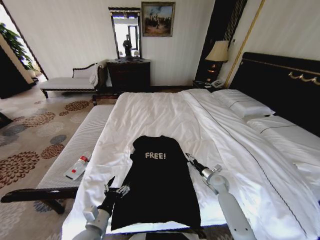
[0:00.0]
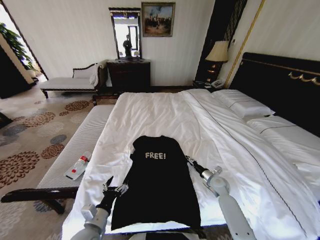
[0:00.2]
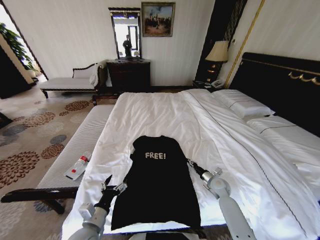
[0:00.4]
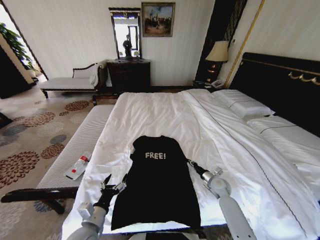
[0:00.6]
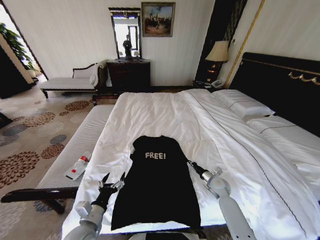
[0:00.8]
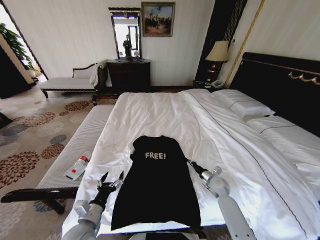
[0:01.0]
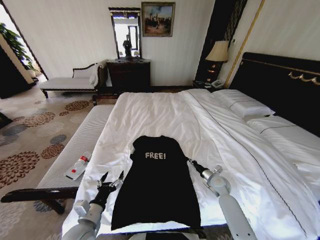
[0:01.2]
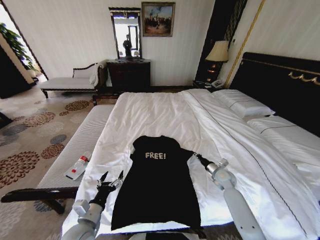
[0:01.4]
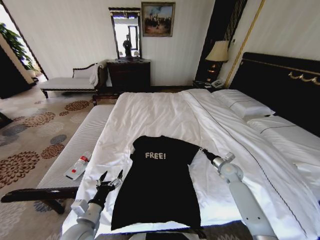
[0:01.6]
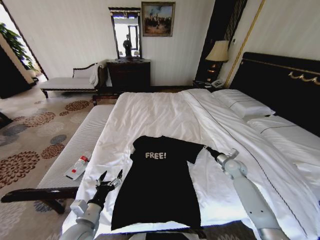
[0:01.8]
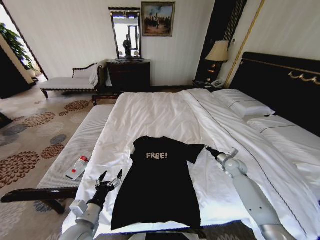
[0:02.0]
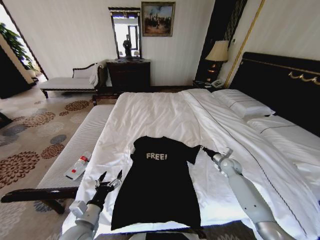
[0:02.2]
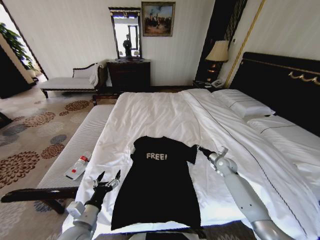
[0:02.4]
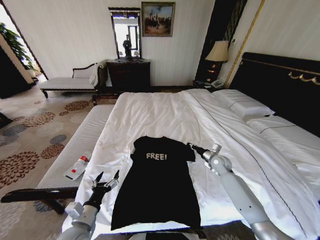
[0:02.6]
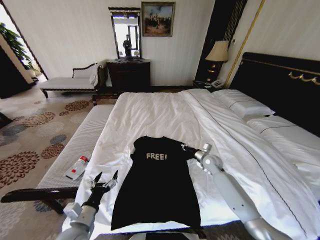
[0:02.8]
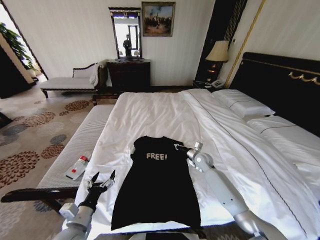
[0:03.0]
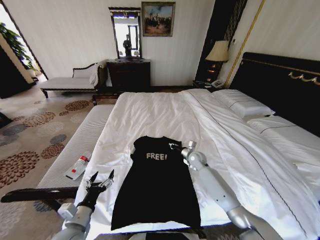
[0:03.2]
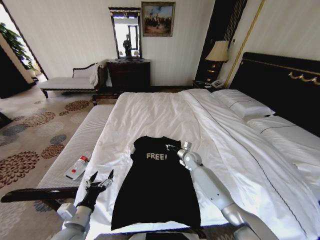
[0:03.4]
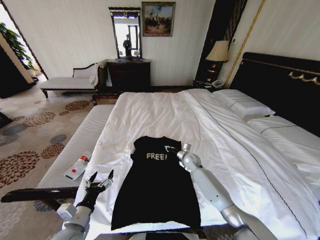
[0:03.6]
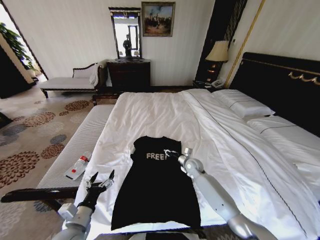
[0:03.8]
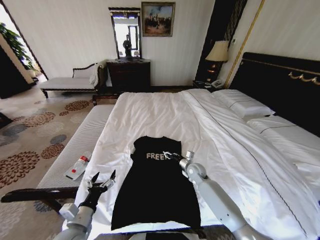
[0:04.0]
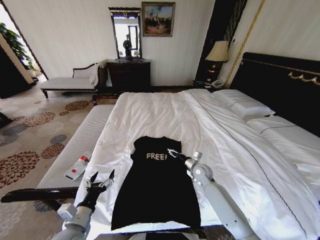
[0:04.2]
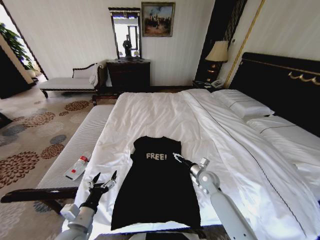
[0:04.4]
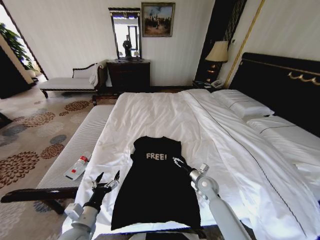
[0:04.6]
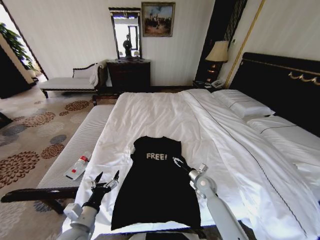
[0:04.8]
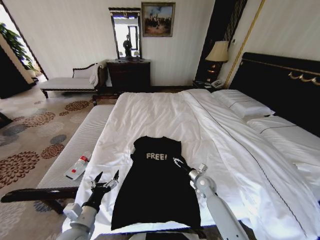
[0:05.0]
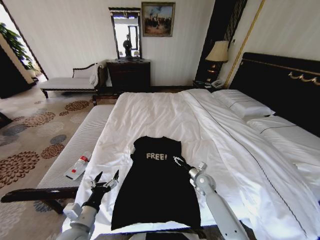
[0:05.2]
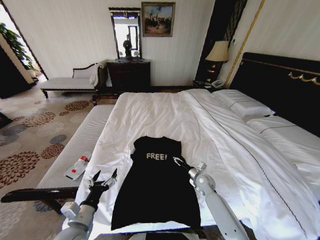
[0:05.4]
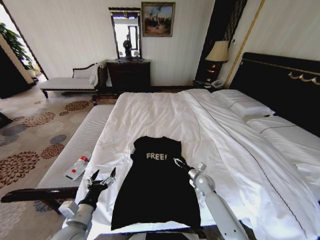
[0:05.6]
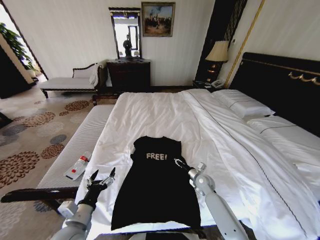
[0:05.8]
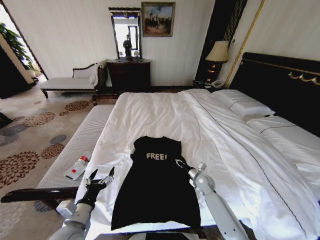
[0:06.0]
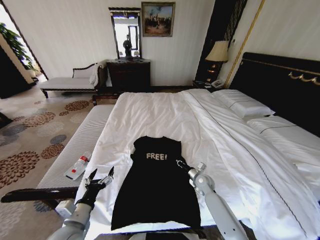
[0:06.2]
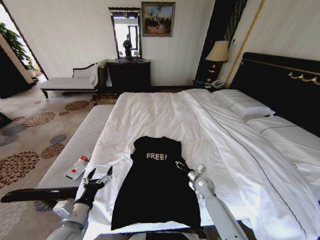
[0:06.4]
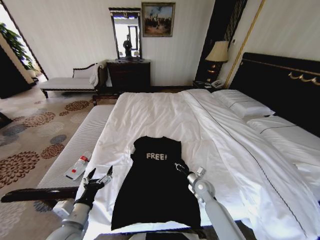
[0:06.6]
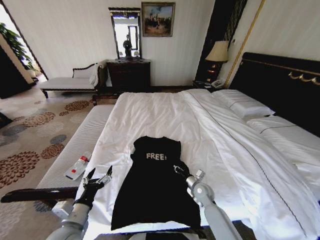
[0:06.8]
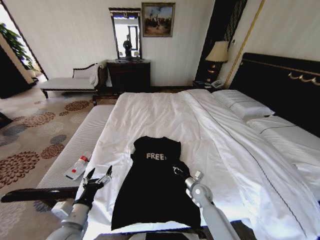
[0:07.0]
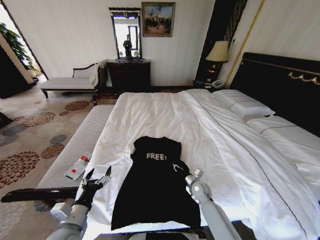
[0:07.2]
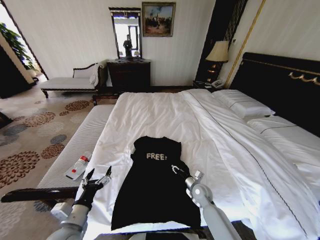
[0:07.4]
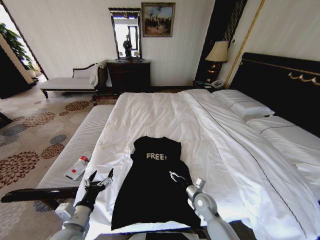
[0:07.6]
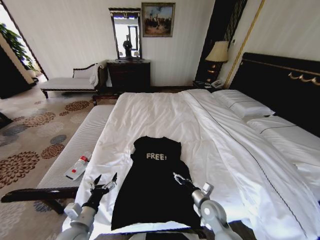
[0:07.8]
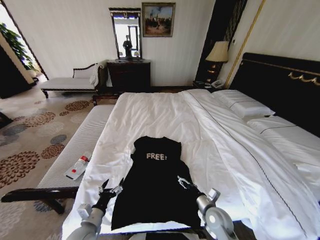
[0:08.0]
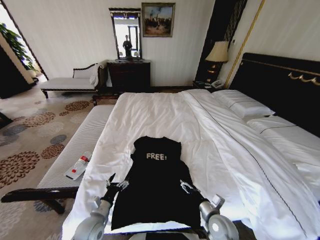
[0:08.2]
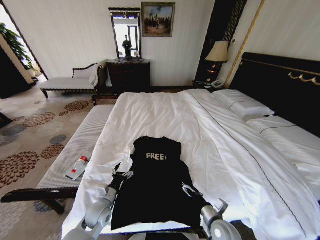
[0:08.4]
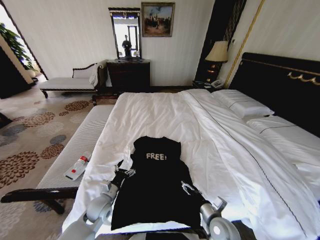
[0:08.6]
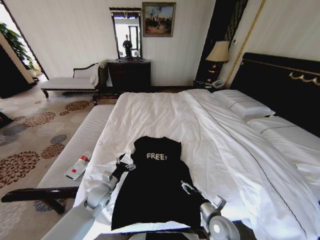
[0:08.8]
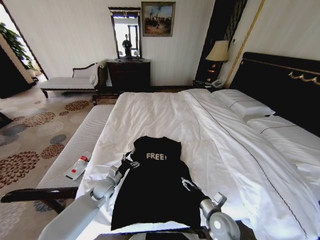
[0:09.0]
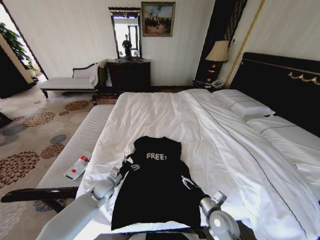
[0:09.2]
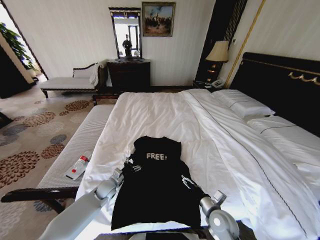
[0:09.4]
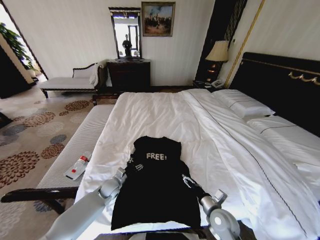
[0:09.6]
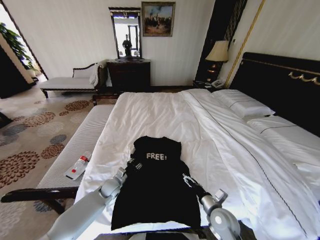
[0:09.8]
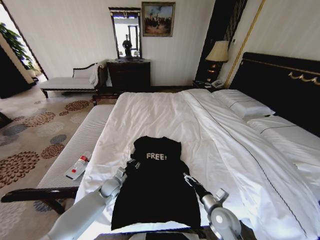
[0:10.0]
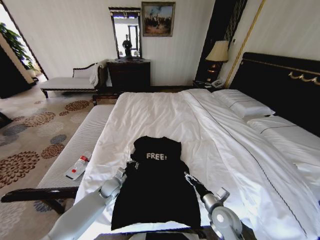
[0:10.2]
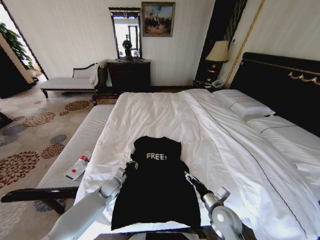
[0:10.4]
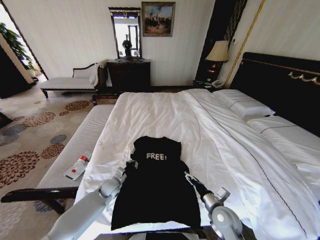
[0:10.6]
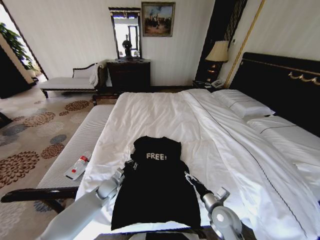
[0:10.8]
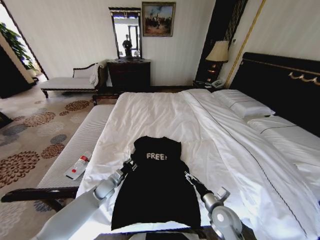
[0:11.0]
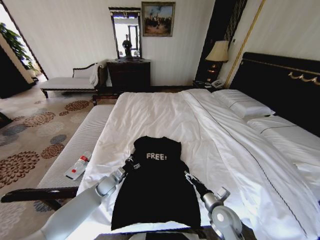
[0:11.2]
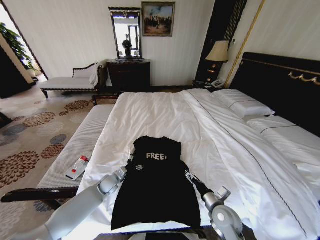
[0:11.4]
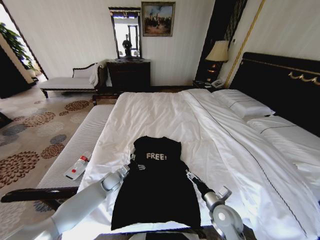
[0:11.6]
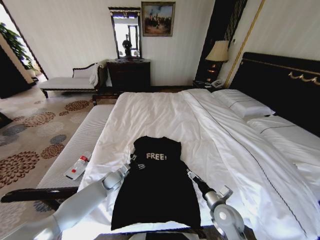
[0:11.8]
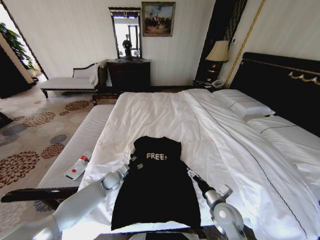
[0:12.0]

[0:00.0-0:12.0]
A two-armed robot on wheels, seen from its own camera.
Task of the whole recording: Fold the clothes on the bed.
0:00.0 to 0:01.6: The right gripper travels upward by about 5 cm, and closes.
0:01.6 to 0:03.0: The right gripper heads to the left and forward, covering about 15 cm.
0:03.0 to 0:04.4: The right gripper goes some 10 cm backward, and opens up.
0:04.4 to 0:06.0: The right gripper heads downward, covering about 5 cm, and closes.
0:06.0 to 0:07.6: The right gripper goes roughly 10 cm backward, and opens up.
0:07.6 to 0:09.0: The right gripper goes about 10 cm backward, and opens; the left gripper shifts roughly 20 cm forward and downward.
0:09.0 to 0:10.4: The left gripper changes place by about 5 cm, and closes up.
0:10.4 to 0:12.0: The left gripper opens up.

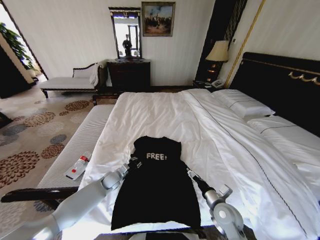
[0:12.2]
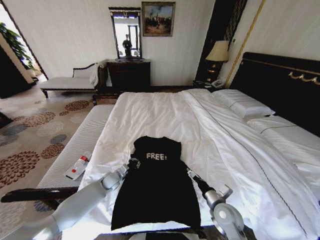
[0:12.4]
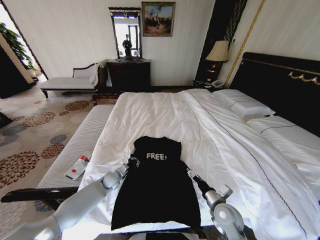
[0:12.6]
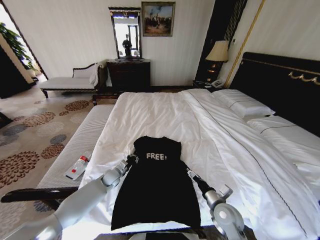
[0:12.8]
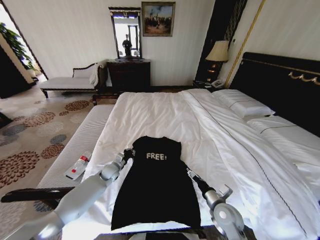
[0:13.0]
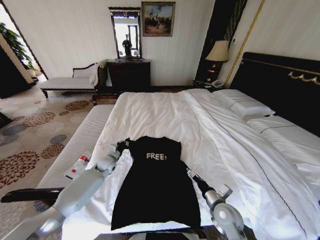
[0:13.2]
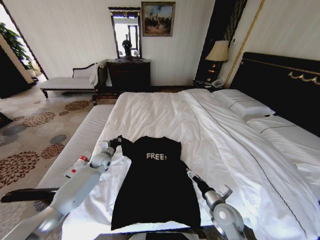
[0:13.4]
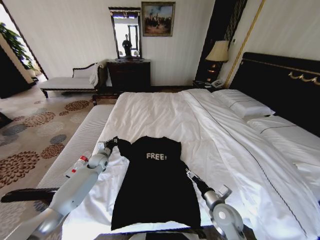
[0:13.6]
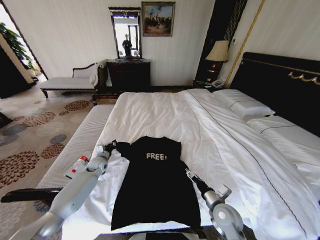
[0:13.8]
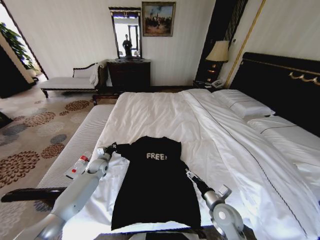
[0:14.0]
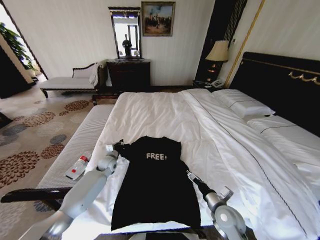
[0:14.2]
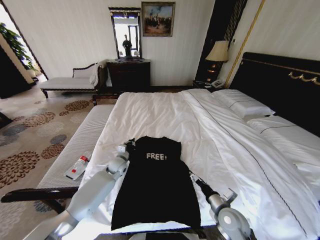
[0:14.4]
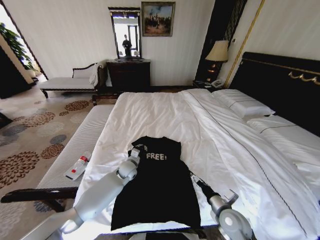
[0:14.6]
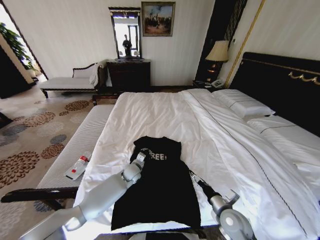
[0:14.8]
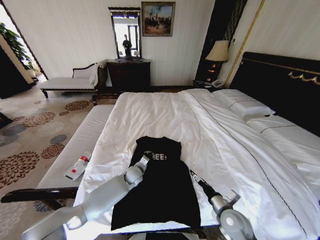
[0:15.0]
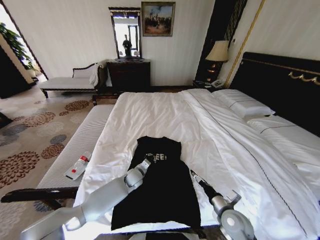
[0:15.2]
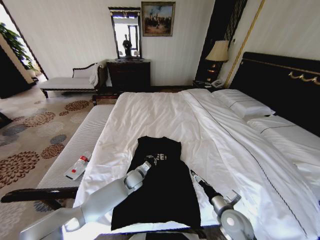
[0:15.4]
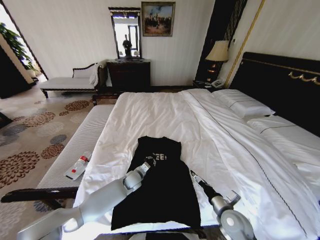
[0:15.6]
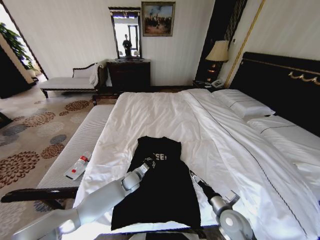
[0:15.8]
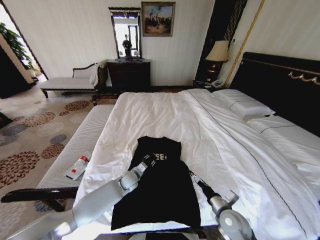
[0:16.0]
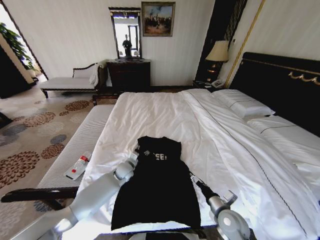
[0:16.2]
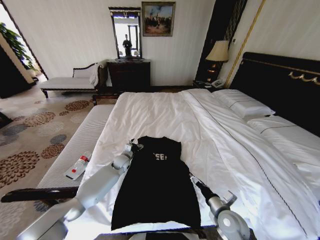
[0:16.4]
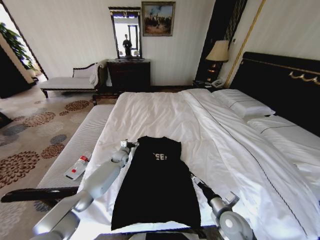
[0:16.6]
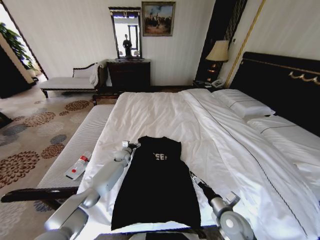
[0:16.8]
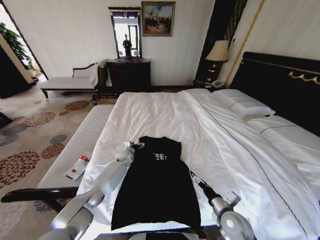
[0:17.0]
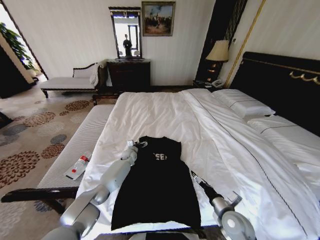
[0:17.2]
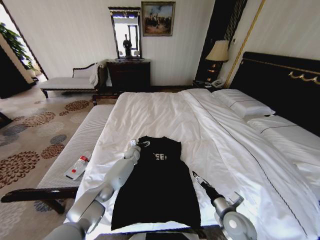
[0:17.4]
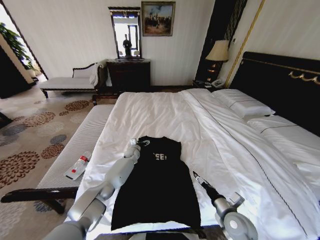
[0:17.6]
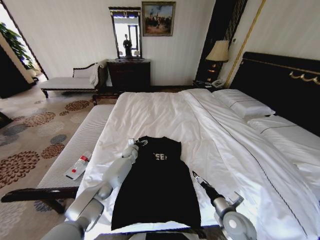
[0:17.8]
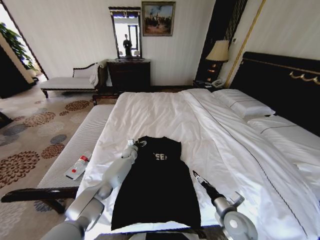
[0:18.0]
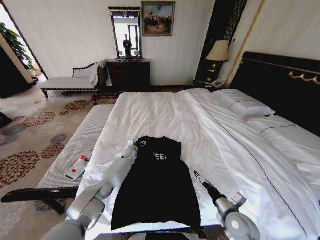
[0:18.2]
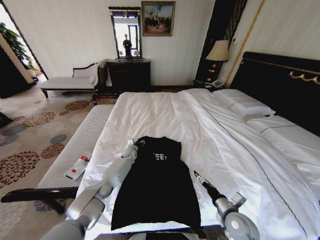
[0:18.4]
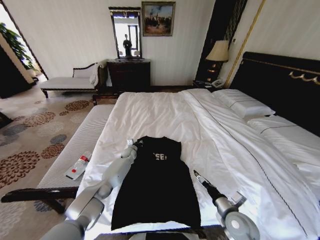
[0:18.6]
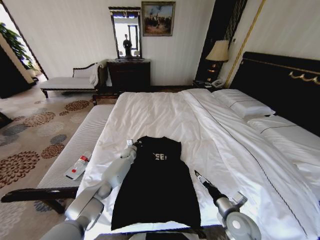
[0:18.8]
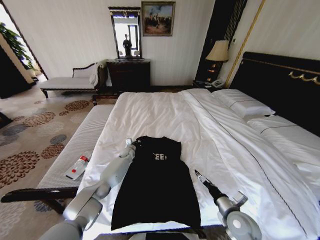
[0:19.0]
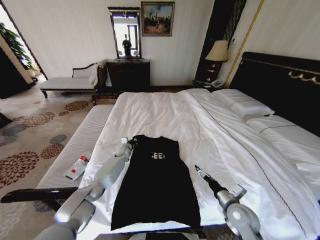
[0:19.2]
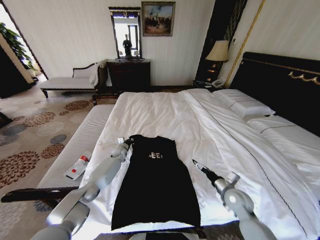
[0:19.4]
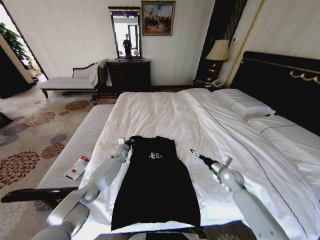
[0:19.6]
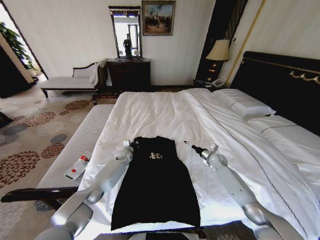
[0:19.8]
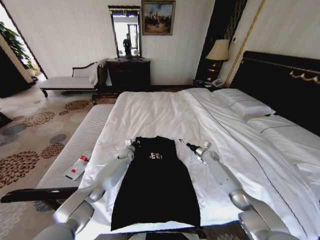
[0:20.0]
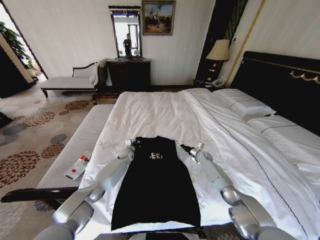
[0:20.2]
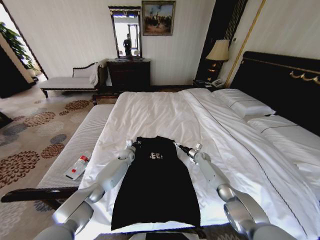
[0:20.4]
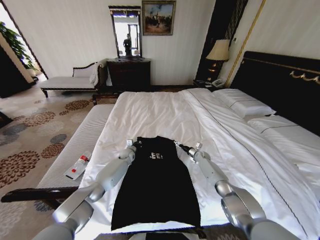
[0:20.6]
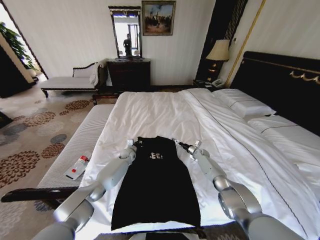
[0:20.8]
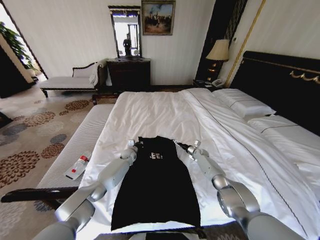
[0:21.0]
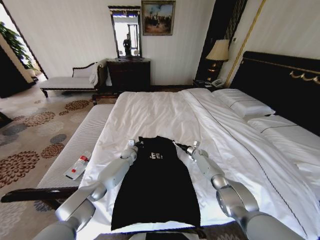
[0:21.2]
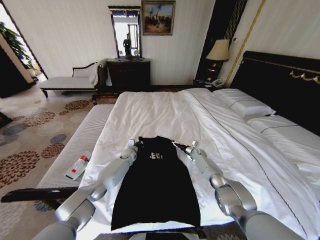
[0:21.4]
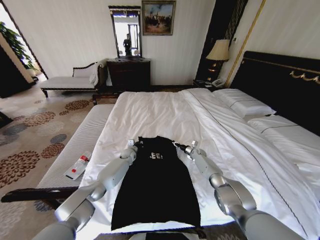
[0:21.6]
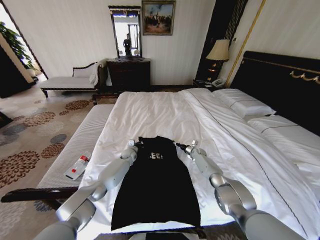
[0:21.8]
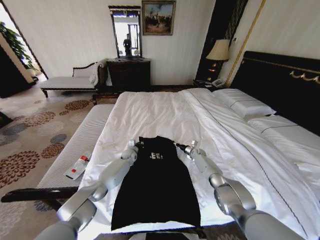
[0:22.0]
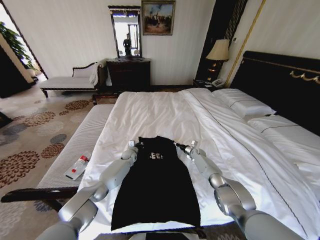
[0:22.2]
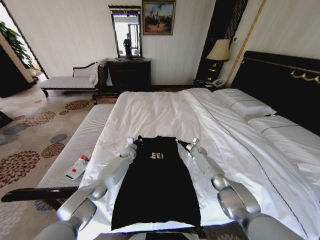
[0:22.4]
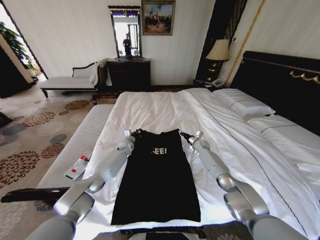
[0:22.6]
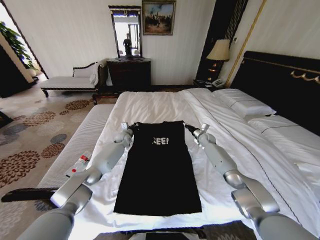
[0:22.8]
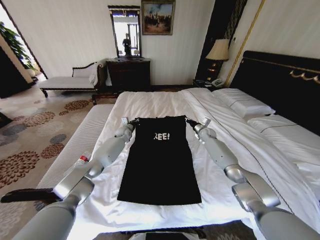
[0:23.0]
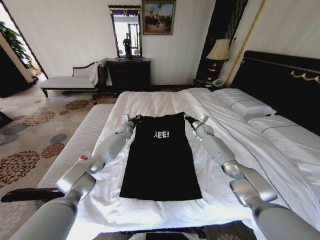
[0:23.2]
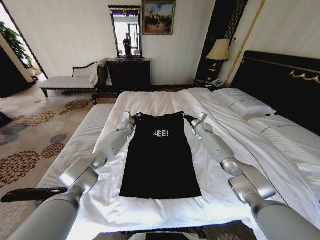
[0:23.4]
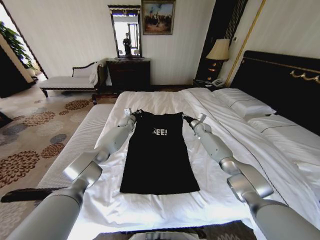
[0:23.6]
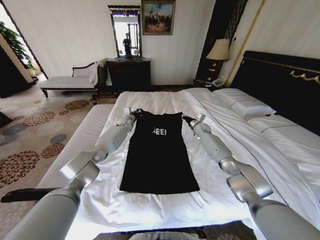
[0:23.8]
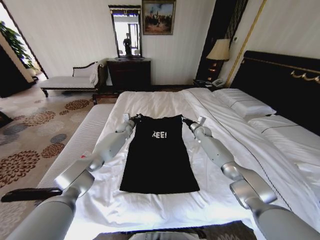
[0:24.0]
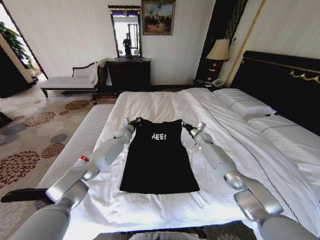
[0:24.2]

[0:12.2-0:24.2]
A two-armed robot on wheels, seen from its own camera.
Task of the whole recording: Fold the clothes on the bed.
0:12.2 to 0:13.8: The left gripper goes roughly 10 cm to the left, forward and upward.
0:13.8 to 0:15.2: The left gripper goes roughly 20 cm to the right.
0:15.2 to 0:16.6: The left gripper is displaced forward and to the left by roughly 15 cm, and opens its fingers.
0:16.6 to 0:18.2: The left gripper moves forward, some 5 cm.
0:18.2 to 0:19.8: The right gripper is displaced forward by about 25 cm. Meanwhile the left gripper closes up.
0:19.8 to 0:21.2: The right gripper moves forward and downward, about 15 cm.
0:21.2 to 0:22.6: The grippers both shift upward by about 5 cm. The right gripper closes.
0:22.6 to 0:24.2: Both grippers travel together upward, some 5 cm.
